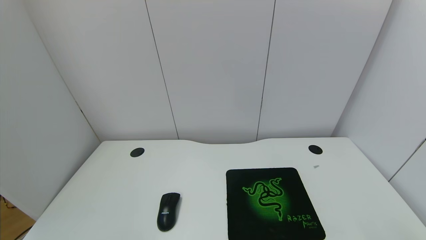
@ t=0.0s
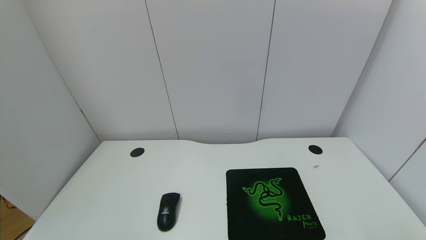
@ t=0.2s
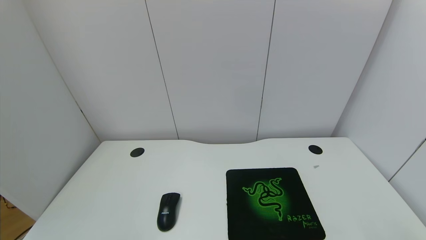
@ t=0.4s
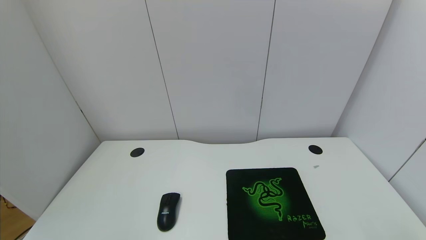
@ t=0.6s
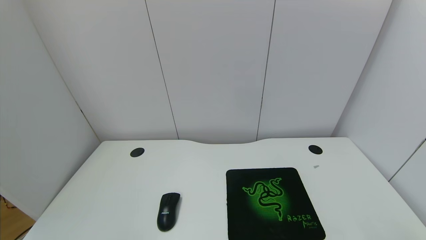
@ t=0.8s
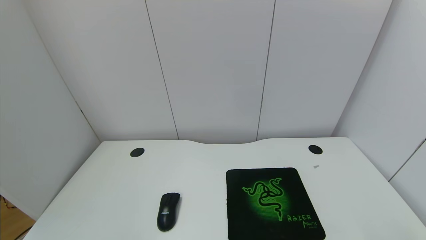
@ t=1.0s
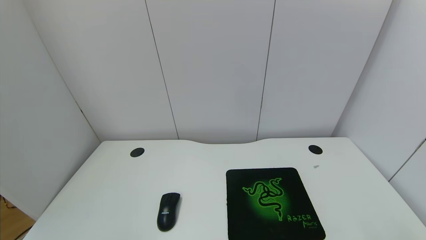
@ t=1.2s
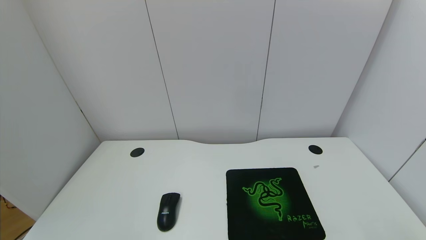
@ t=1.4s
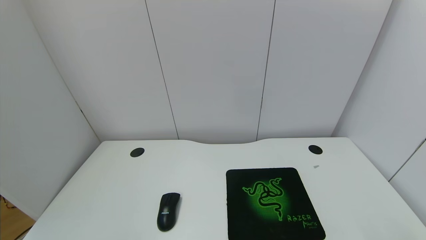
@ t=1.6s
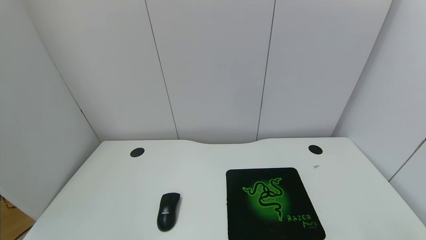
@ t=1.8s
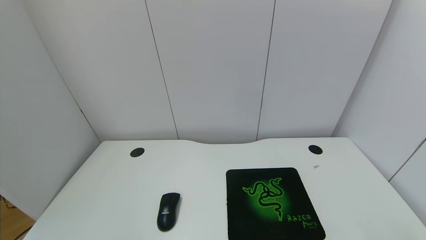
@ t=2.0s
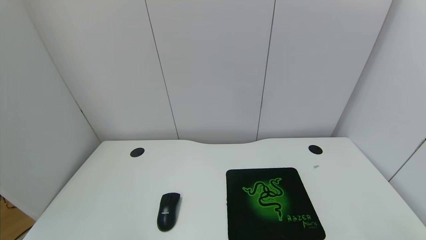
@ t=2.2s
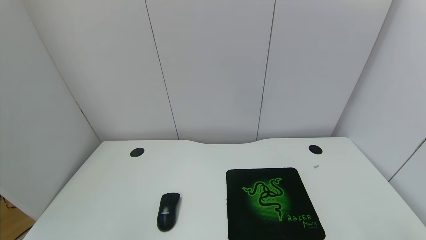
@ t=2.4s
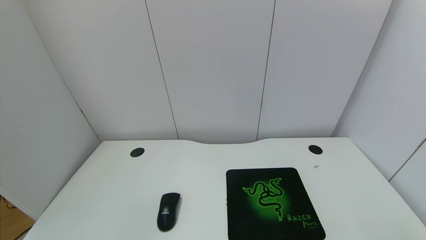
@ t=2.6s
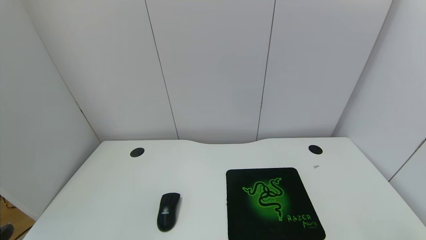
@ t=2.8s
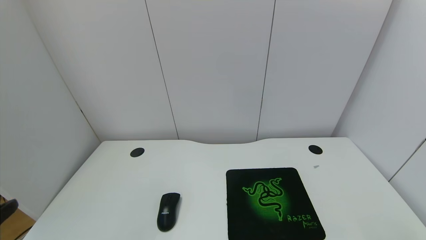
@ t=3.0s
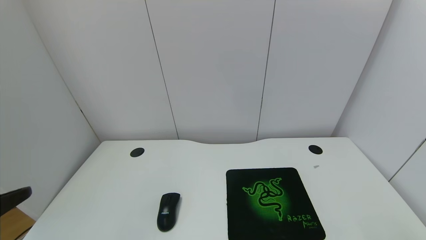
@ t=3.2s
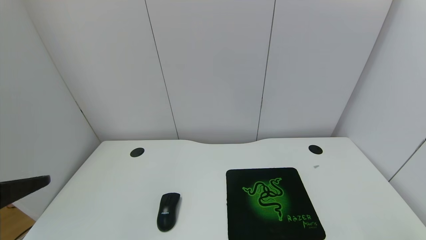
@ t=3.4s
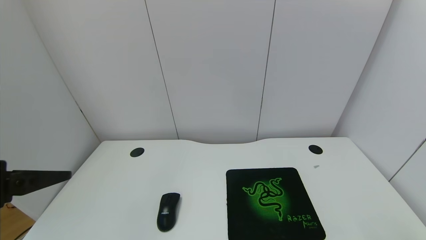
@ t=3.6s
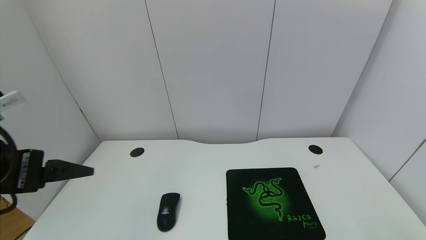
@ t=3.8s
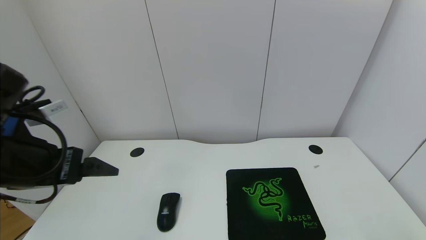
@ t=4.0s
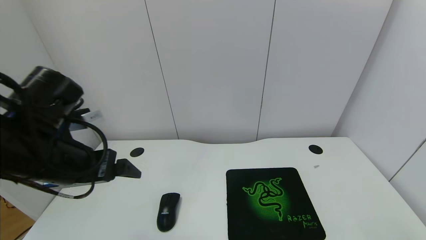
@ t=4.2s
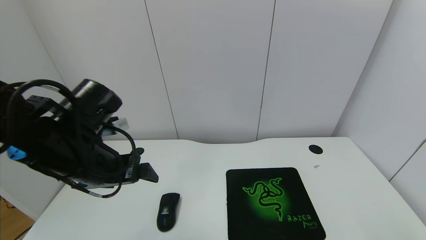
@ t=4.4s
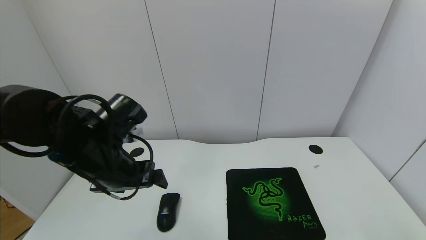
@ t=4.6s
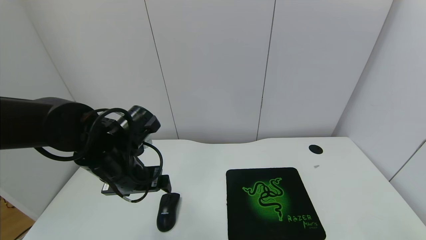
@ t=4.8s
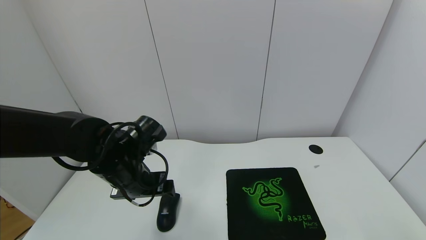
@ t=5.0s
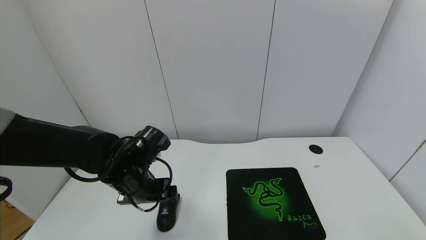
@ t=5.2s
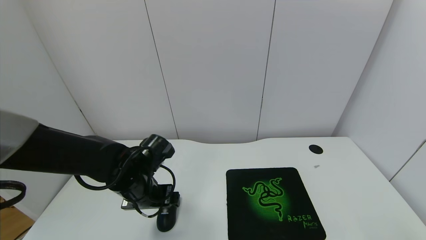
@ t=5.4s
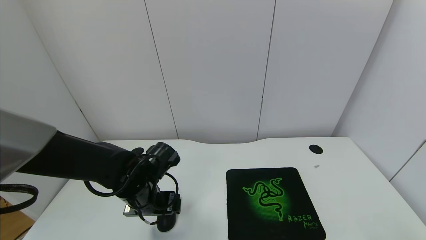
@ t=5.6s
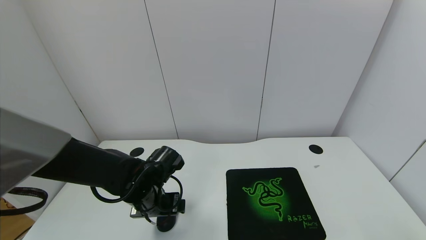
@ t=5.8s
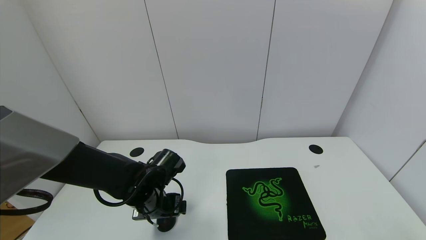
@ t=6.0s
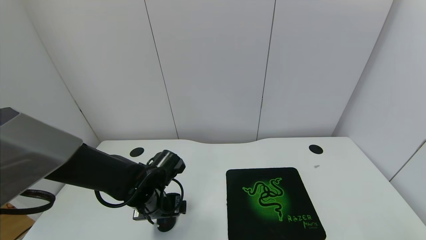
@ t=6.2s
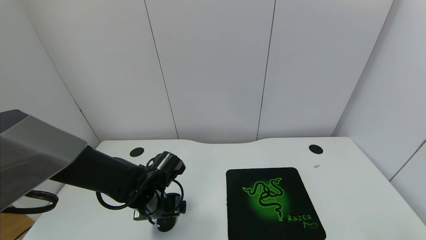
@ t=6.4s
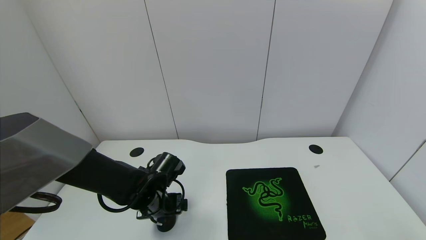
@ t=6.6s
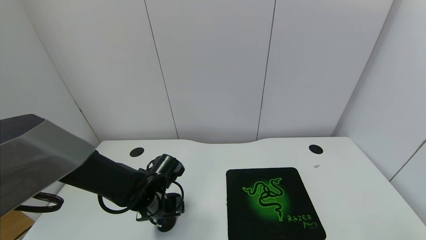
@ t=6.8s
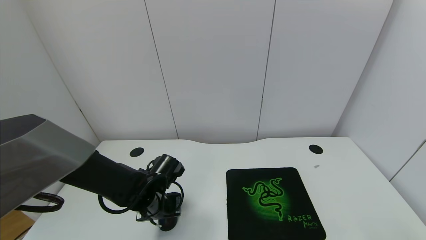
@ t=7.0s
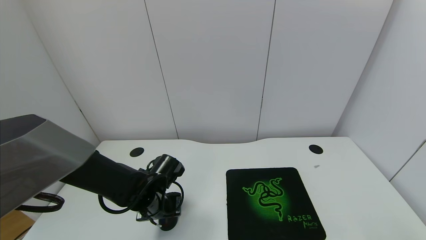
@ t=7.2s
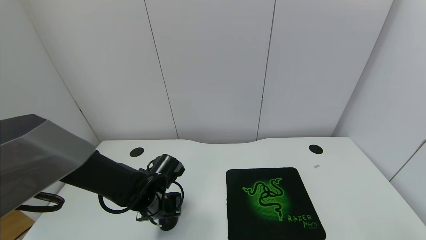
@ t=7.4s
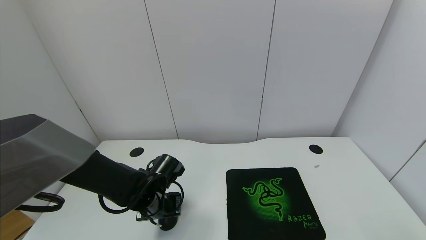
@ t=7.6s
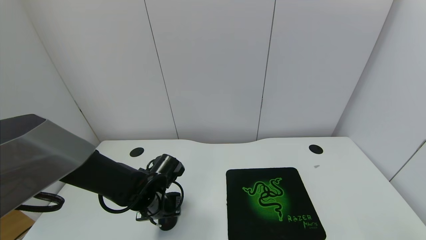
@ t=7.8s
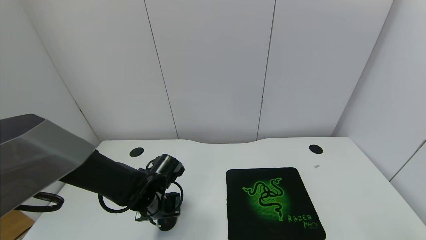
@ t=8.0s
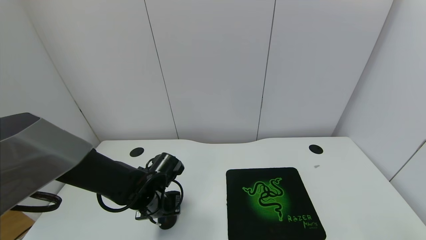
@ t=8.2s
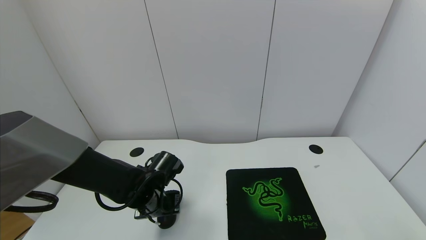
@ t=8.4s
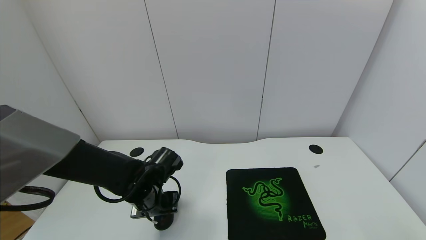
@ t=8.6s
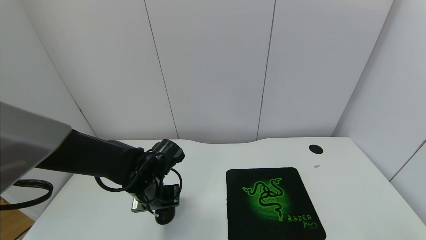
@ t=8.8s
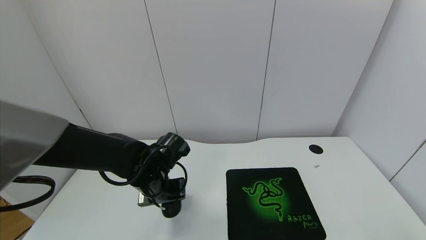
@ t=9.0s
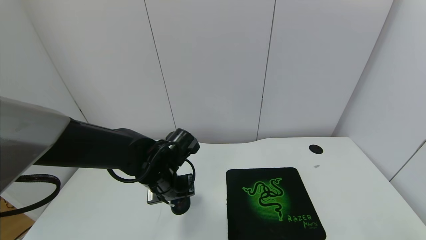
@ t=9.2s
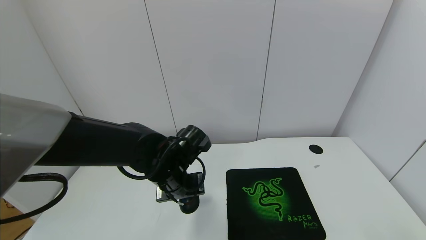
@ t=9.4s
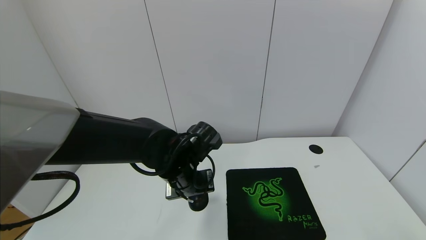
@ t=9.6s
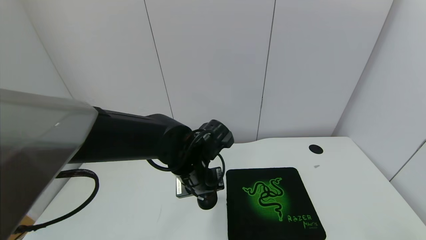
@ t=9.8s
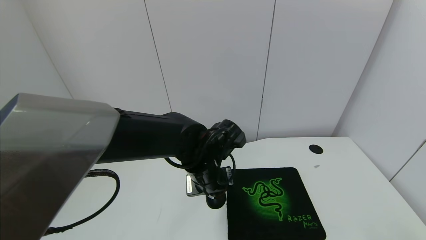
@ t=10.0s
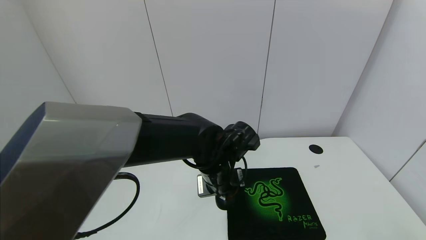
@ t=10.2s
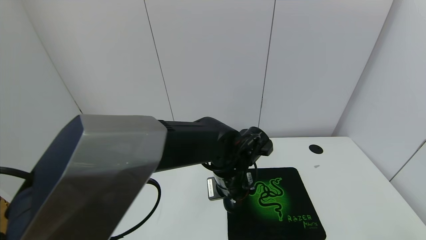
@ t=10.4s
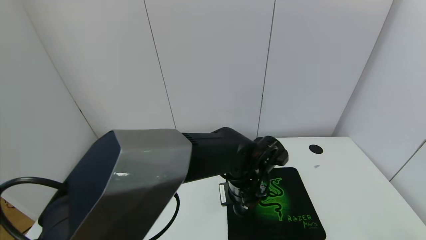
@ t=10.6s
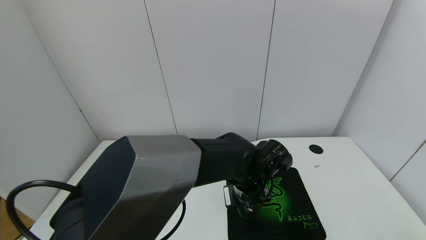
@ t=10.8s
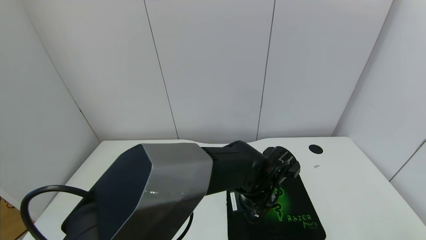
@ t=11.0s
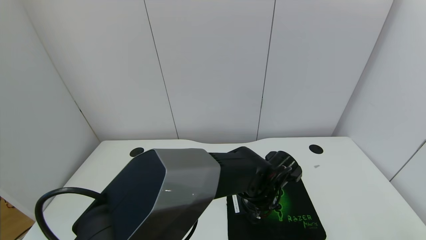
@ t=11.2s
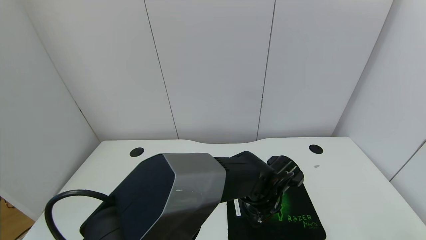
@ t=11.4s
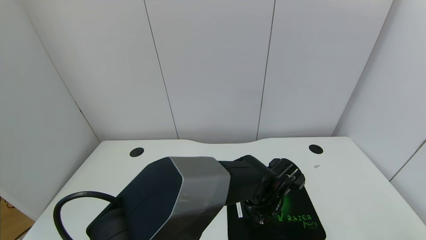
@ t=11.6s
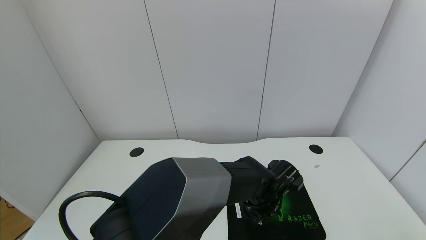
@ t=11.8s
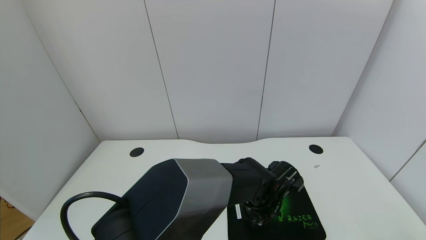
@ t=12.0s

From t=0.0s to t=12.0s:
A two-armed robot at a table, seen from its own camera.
Task of the whole recording: use the gripper to move the mouse from one side of the table to the mouse pad on the opposite side.
Step, from t=0.0s to t=8.0s: Grasp the mouse with the left gripper.
From t=0.0s to t=1.6s: The two grippers keep their place.
From t=3.0s to t=4.4s: The left gripper moves forward and to the right, roughly 25 cm.
From t=4.4s to t=6.0s: The left gripper heads downward, covering some 15 cm.
From t=6.0s to t=7.6s: The left gripper closes.
From t=7.6s to t=9.0s: The left gripper moves upward, approximately 5 cm.
From t=9.0s to t=10.4s: The left gripper shifts approximately 15 cm to the right.
From t=10.4s to t=12.0s: The left gripper heads downward and to the right, covering approximately 10 cm, and opens its fingers.

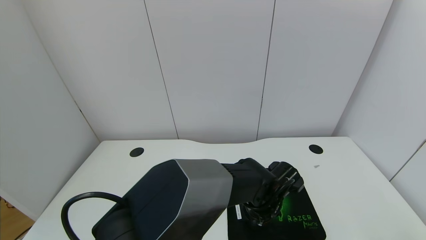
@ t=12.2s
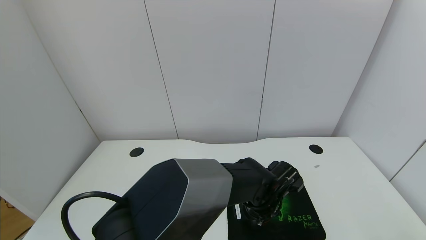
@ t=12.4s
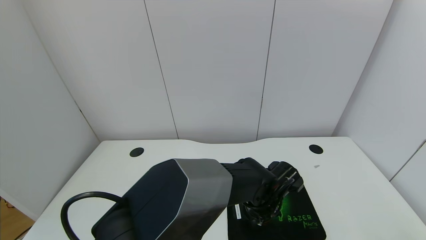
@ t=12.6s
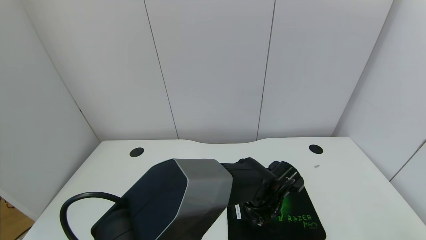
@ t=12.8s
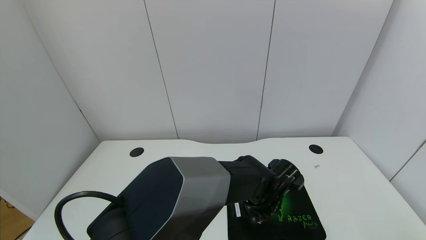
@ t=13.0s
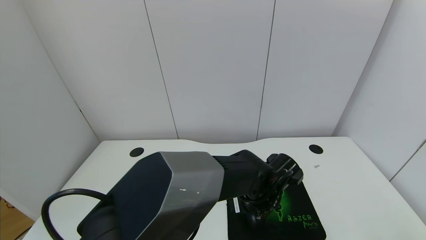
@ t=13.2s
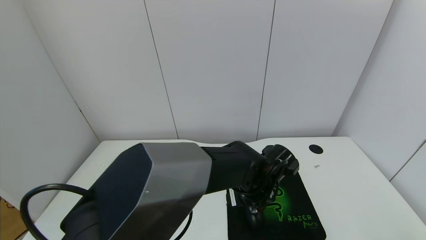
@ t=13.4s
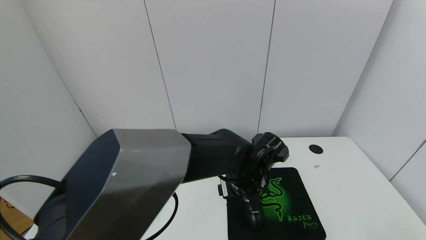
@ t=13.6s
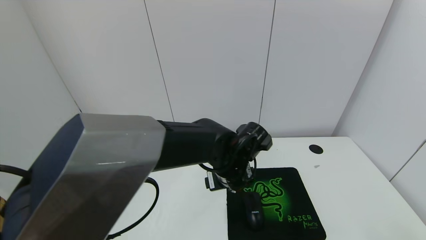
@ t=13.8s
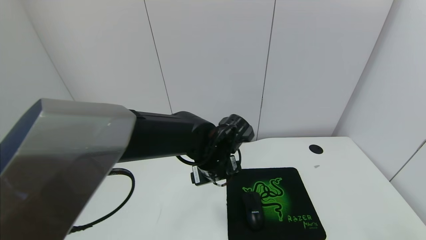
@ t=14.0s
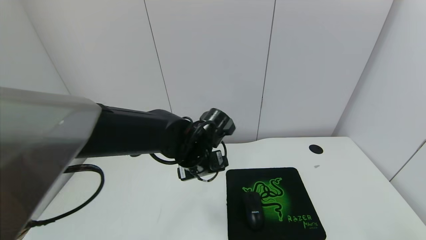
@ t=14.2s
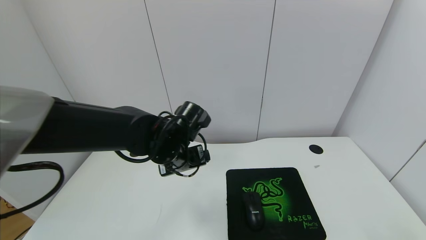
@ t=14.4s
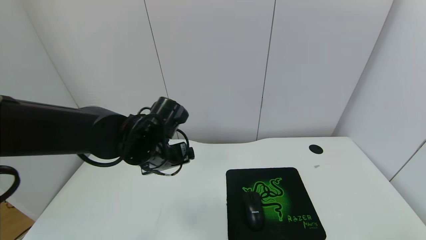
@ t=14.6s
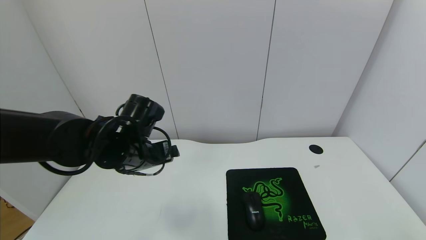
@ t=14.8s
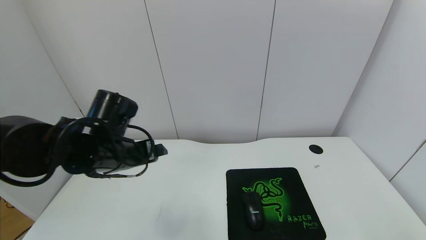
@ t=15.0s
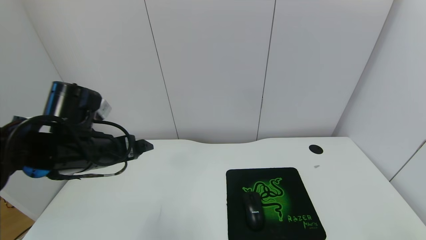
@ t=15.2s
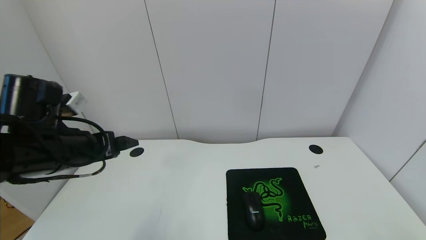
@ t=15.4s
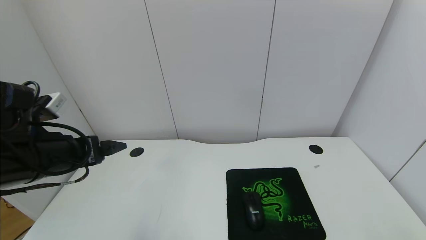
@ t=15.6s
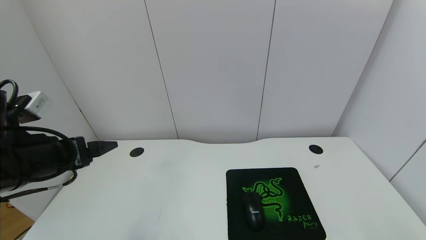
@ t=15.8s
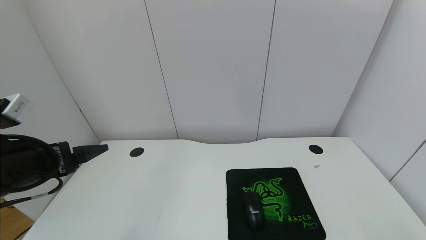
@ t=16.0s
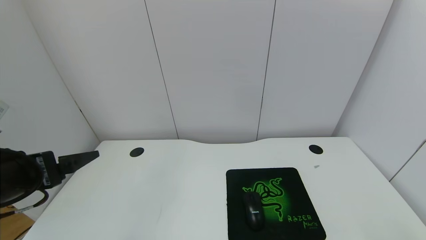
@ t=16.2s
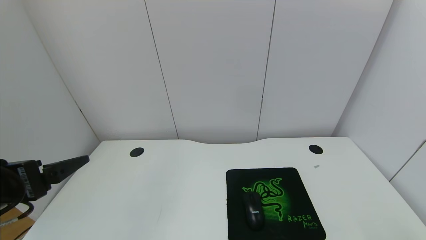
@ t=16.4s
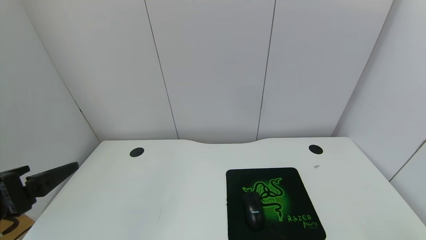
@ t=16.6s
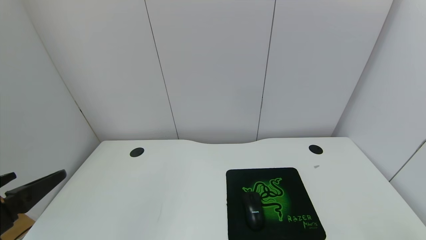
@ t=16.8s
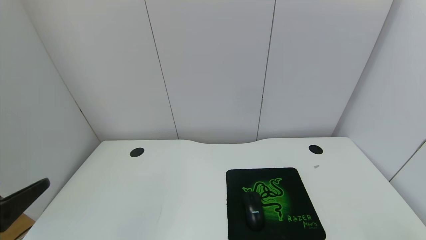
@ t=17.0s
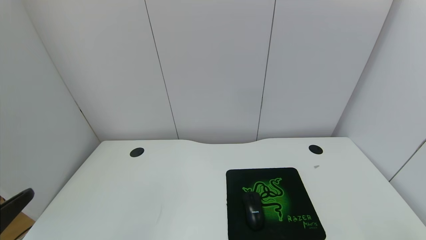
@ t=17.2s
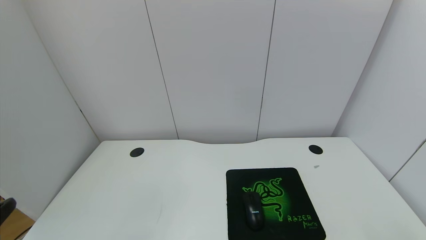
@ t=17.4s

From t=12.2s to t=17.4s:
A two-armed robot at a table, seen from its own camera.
Task of the whole recording: use the gripper to move the mouse from one side of the table to the mouse pad on the opposite side.
From t=12.2s to t=14.0s: The left gripper shifts some 15 cm to the left and upward, and opens its fingers.
From t=14.0s to t=15.6s: The left gripper is displaced to the left and backward by approximately 25 cm.
From t=15.6s to t=17.4s: The left gripper goes about 20 cm backward.
